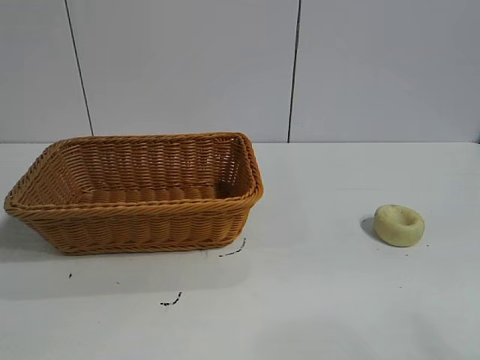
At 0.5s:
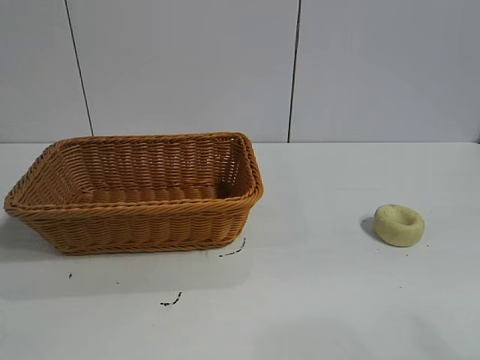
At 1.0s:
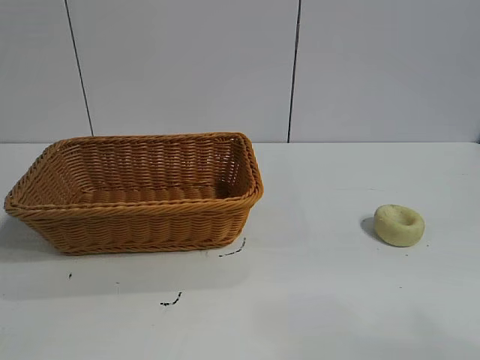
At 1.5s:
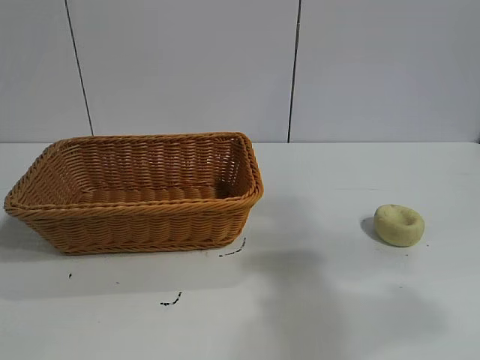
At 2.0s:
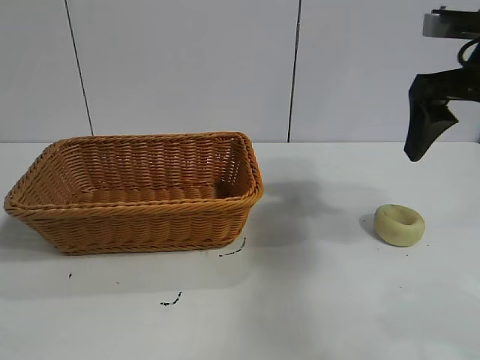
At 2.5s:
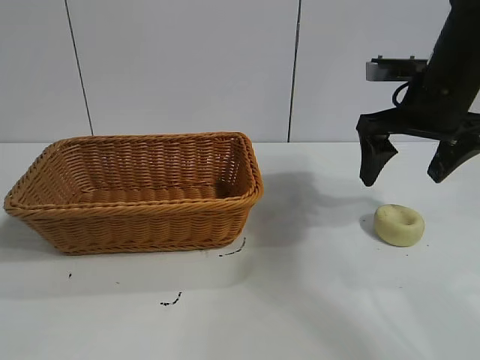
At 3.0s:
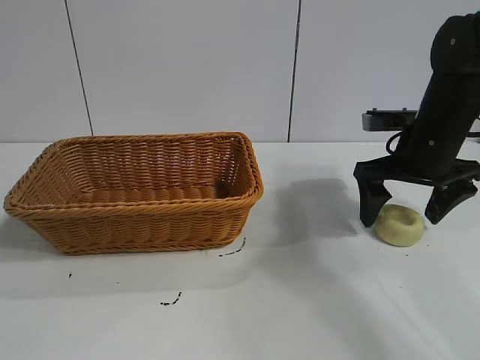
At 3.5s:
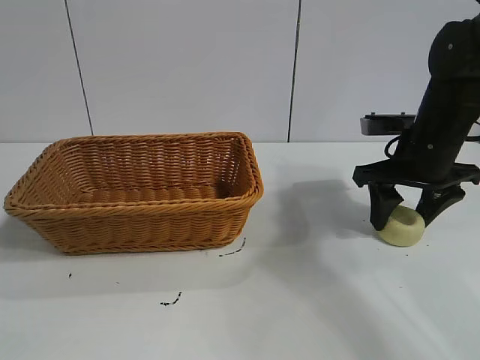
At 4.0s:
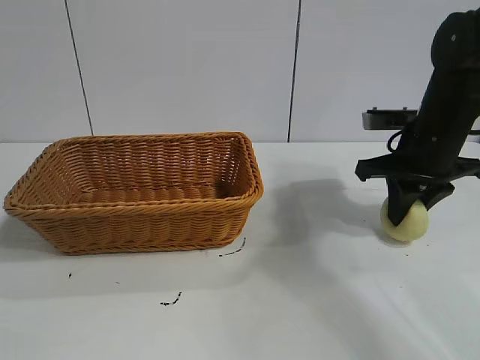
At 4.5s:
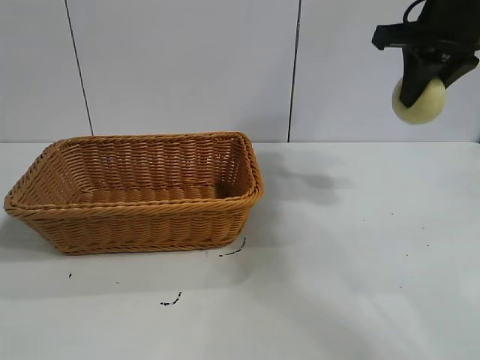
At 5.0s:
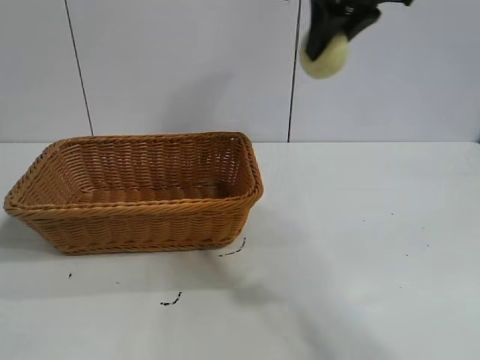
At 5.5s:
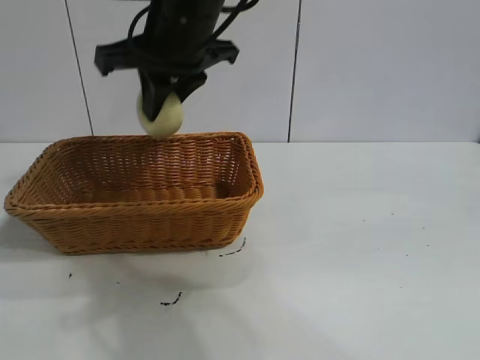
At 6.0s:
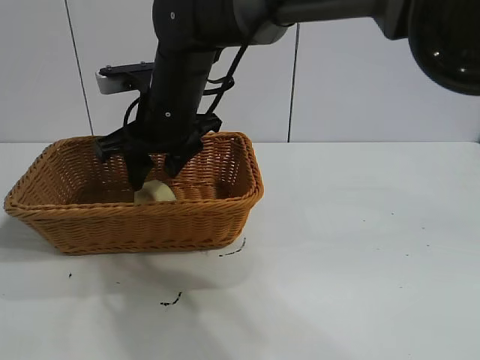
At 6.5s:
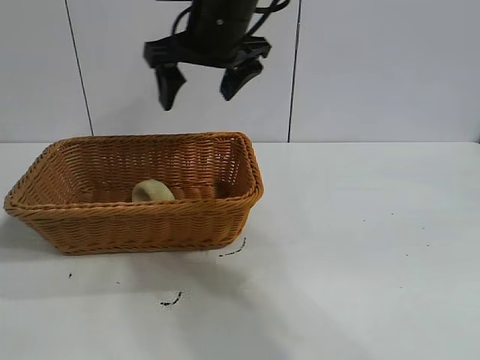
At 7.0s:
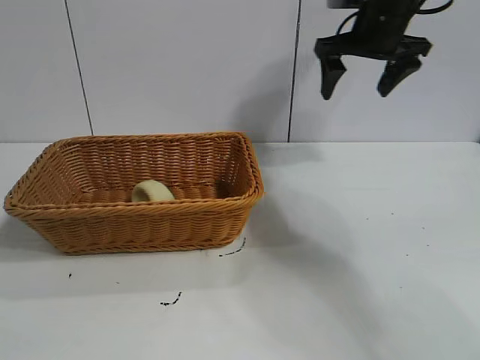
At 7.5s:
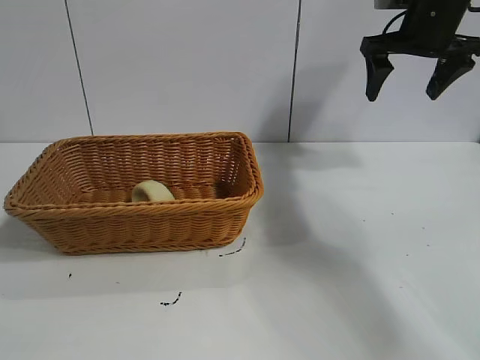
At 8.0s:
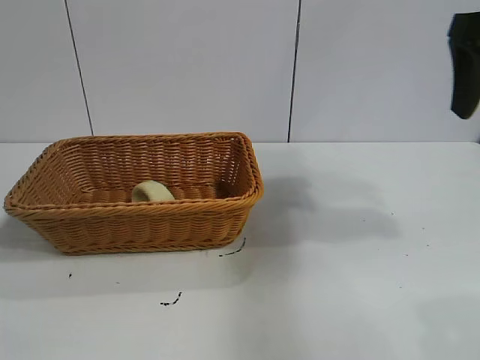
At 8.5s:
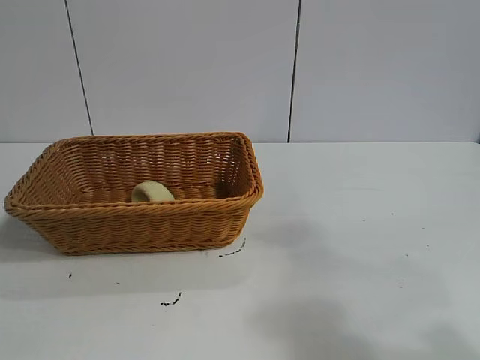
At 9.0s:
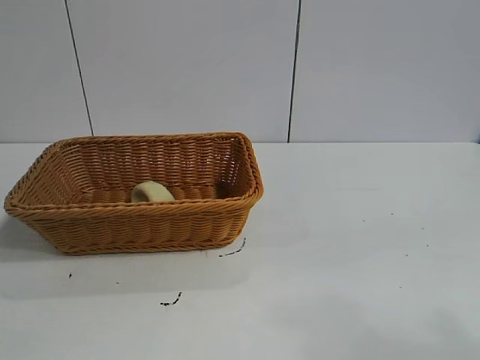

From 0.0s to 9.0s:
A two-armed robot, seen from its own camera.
Task of the whole recording: pick up the egg yolk pastry and put it into the basket.
Step, from 1.0s to 3.5s: Grasp egg yolk pastry with right gripper.
Step, from 4.0s to 6.0s: Place the egg yolk pastry in the basket with right gripper.

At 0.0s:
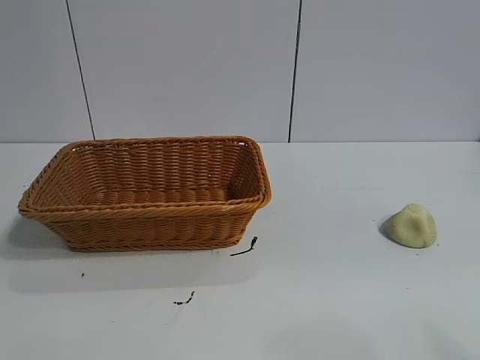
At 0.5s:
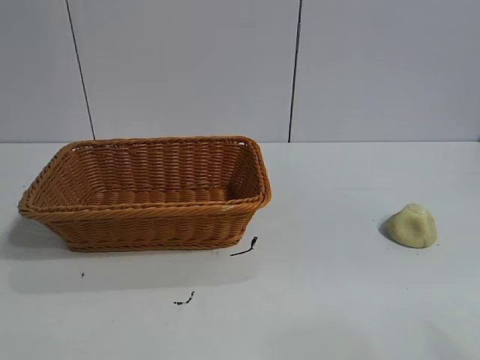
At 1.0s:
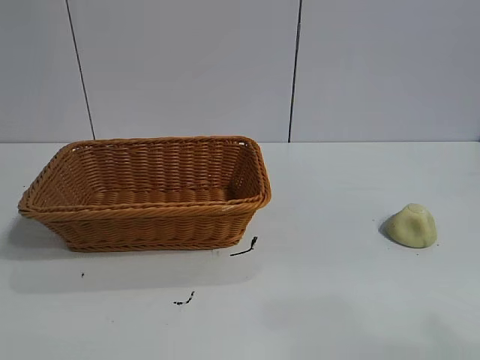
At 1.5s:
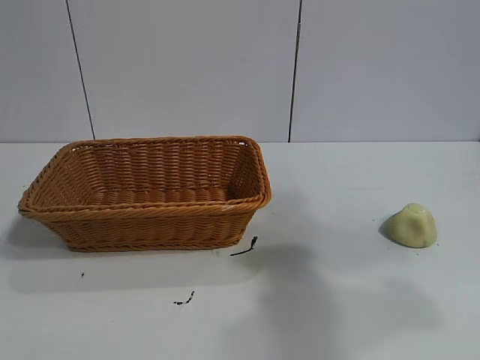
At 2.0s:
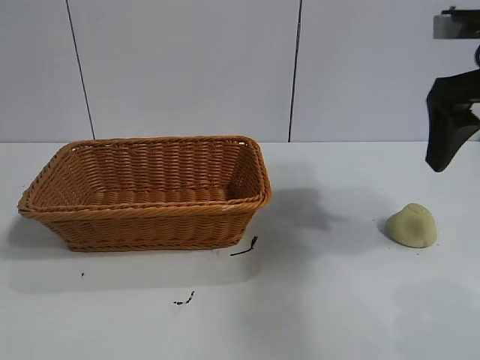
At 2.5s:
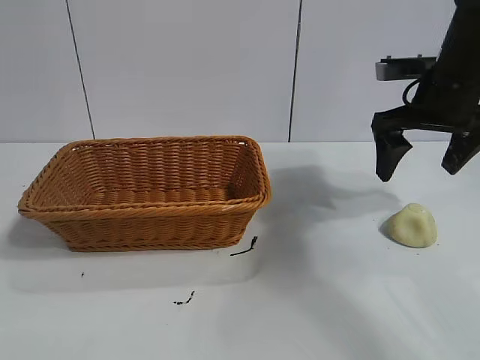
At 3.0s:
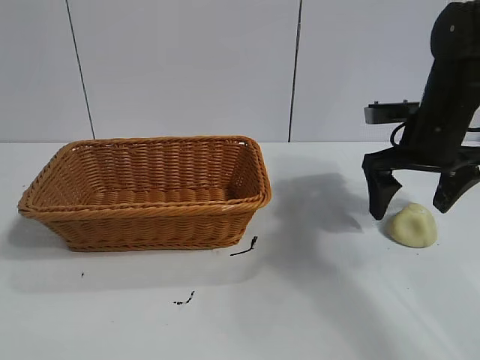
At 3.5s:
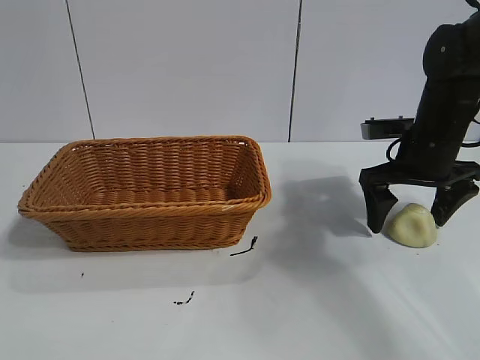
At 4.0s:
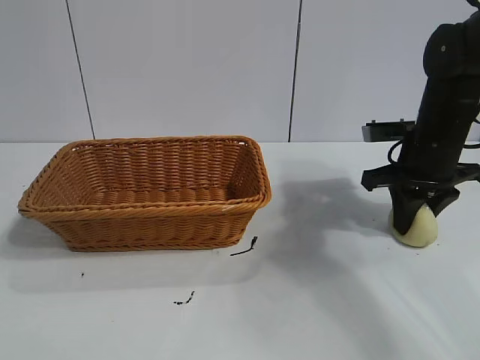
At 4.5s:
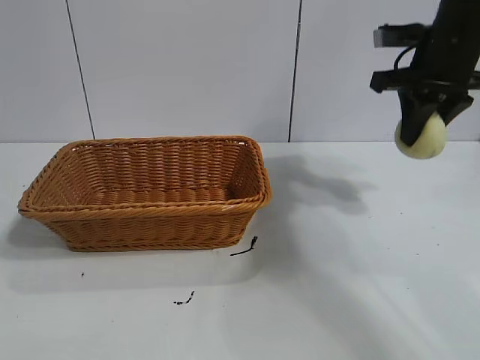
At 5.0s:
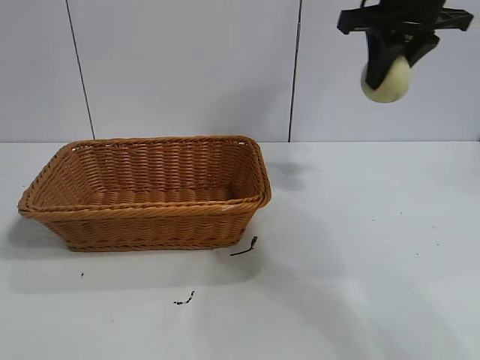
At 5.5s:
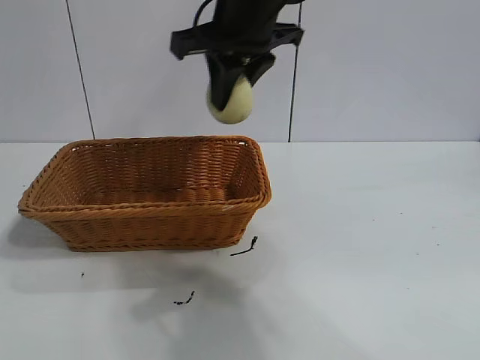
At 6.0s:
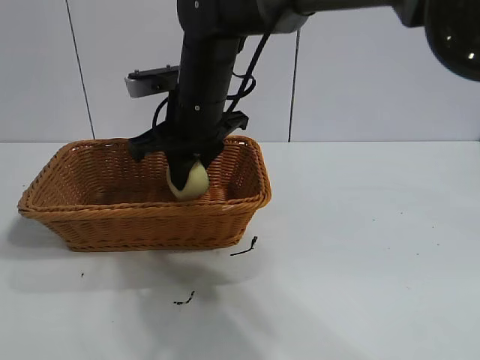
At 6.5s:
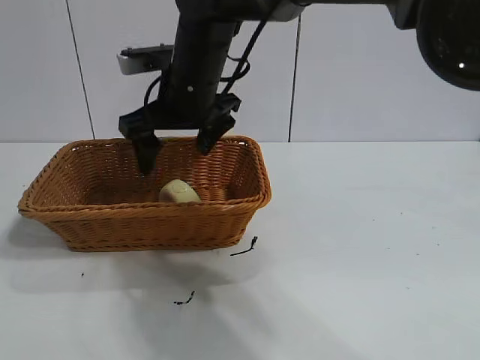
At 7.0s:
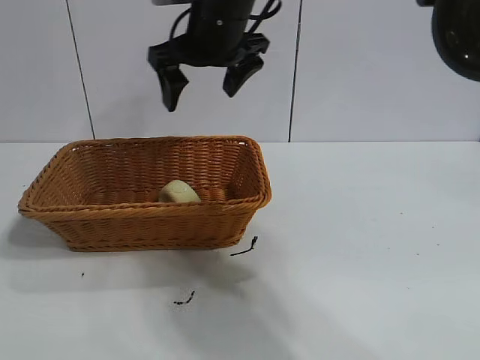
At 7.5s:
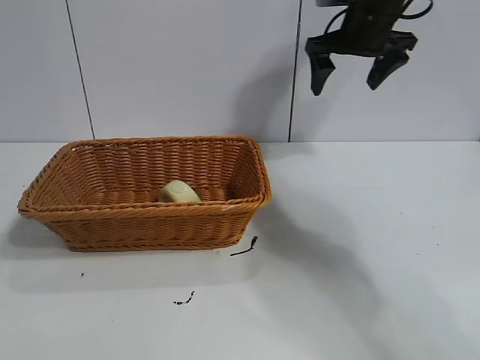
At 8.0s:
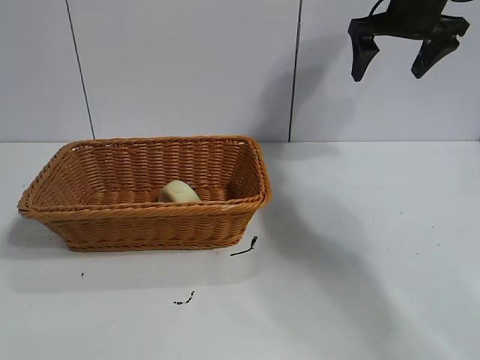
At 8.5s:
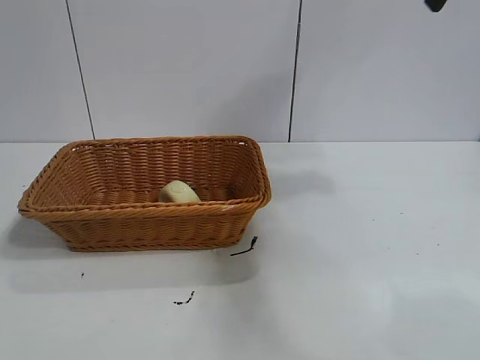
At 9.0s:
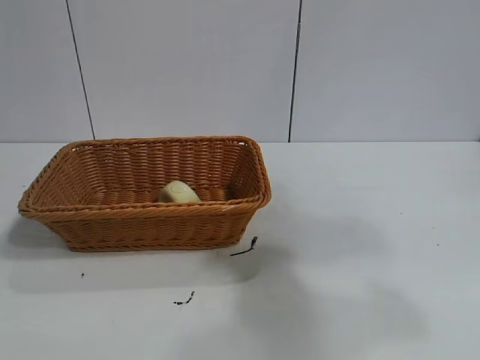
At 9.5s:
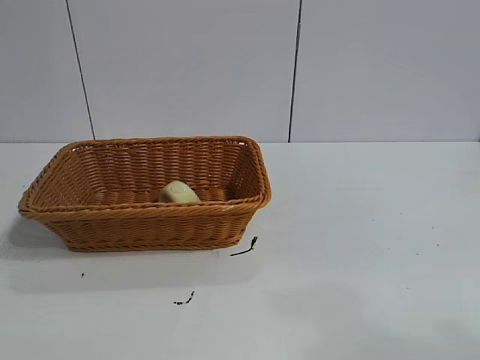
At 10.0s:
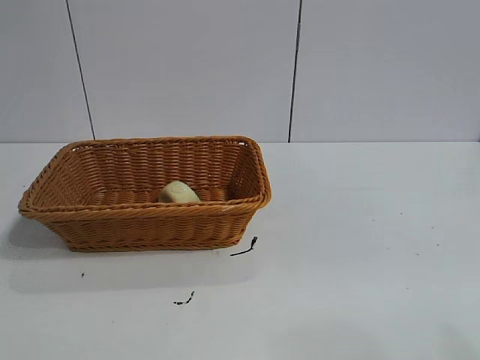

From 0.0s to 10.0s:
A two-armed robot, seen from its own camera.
Task of the whole recording: pick up the egg yolk pastry and put it into the basket.
Step, from 1.0s to 4.0s: Grasp egg yolk pastry with right gripper.
Step, from 4.5s to 6.5s: Place the egg yolk pastry in the basket with right gripper.
